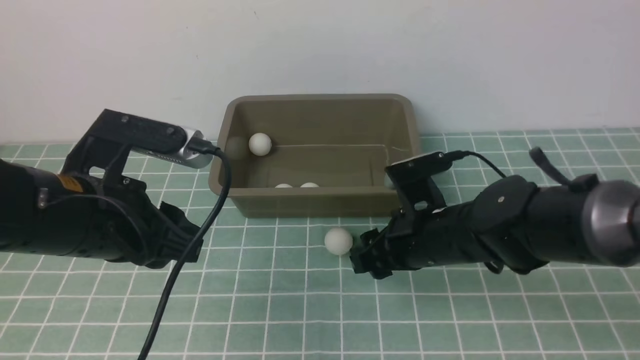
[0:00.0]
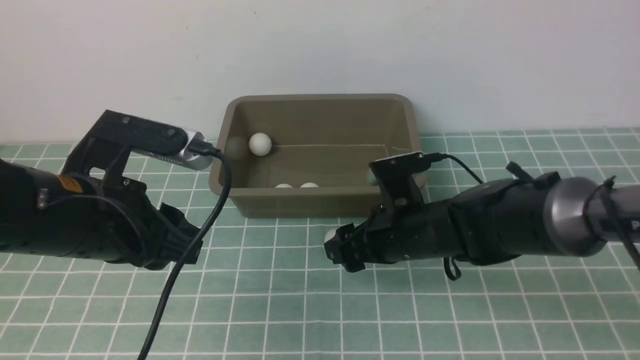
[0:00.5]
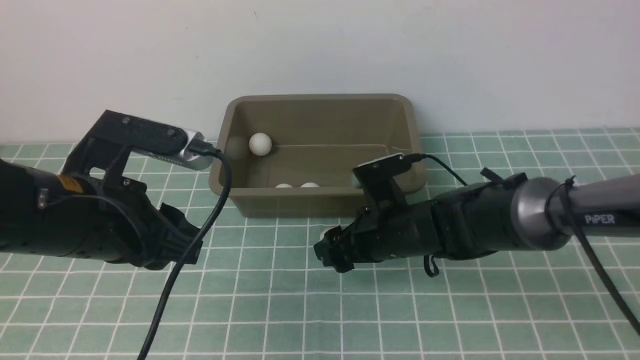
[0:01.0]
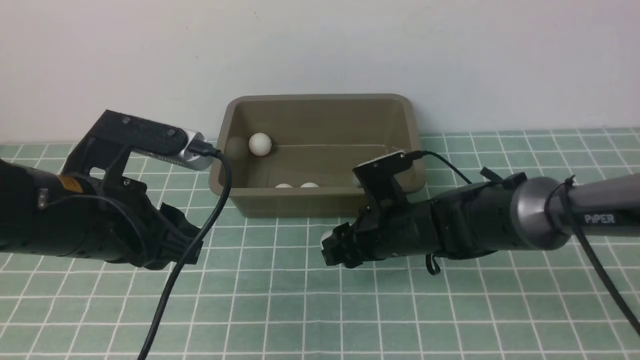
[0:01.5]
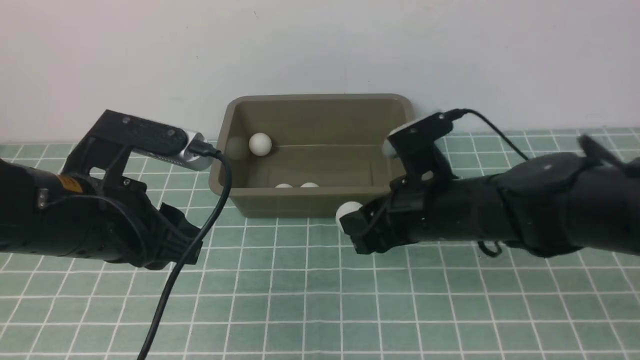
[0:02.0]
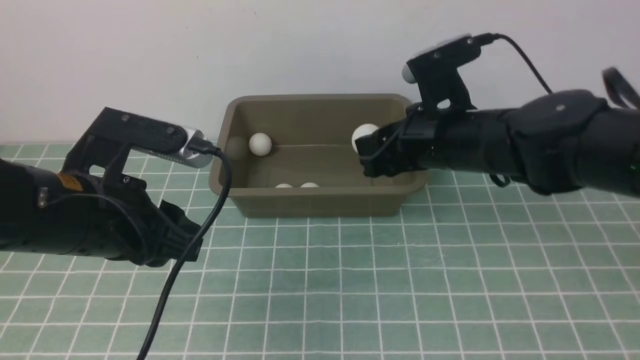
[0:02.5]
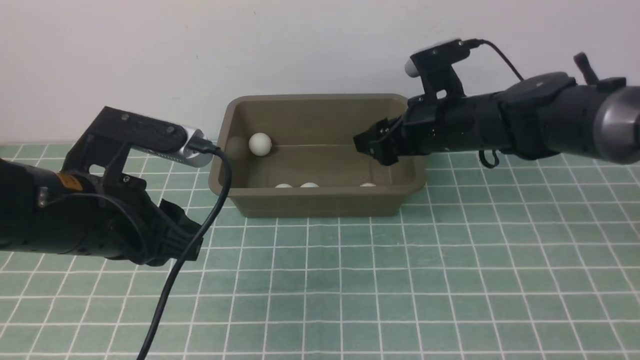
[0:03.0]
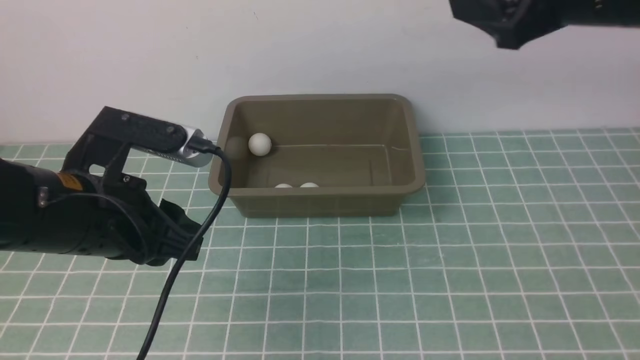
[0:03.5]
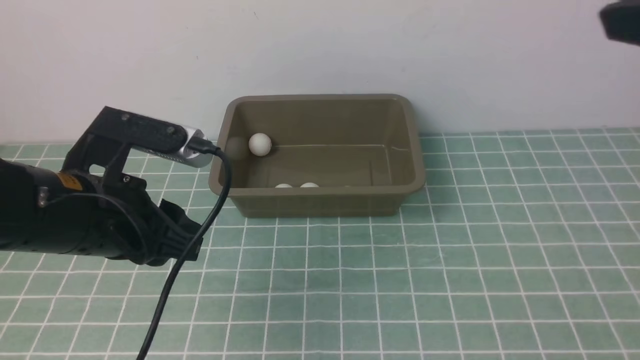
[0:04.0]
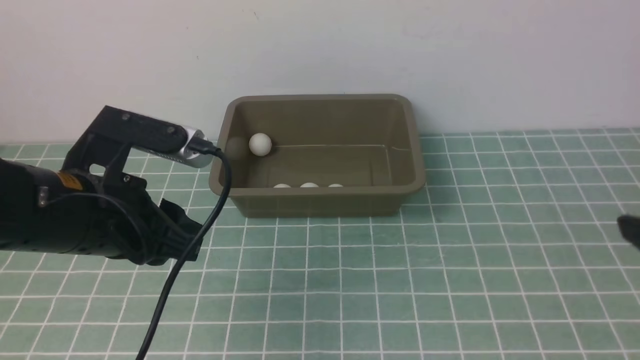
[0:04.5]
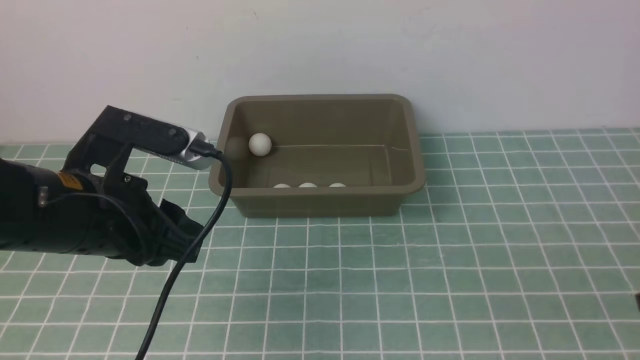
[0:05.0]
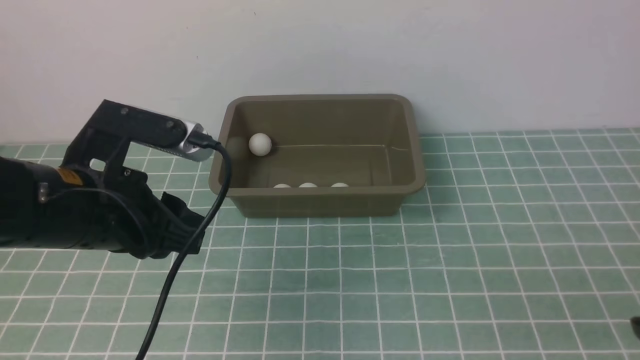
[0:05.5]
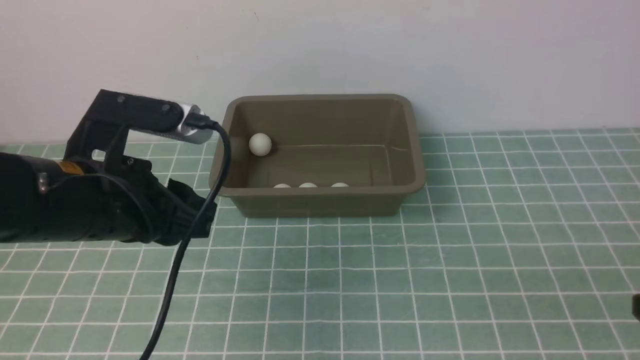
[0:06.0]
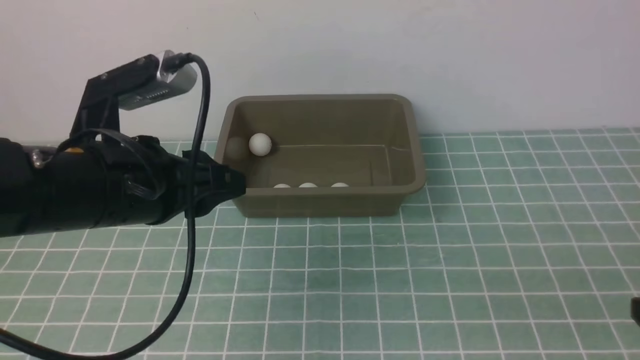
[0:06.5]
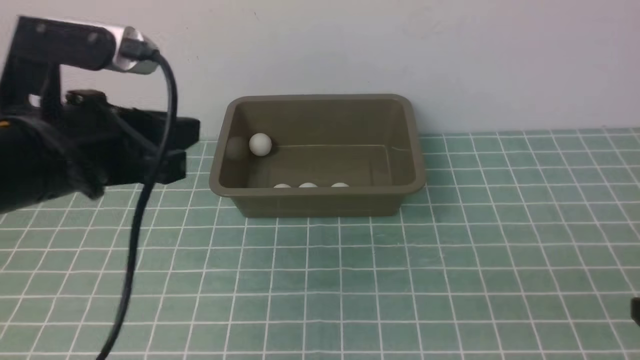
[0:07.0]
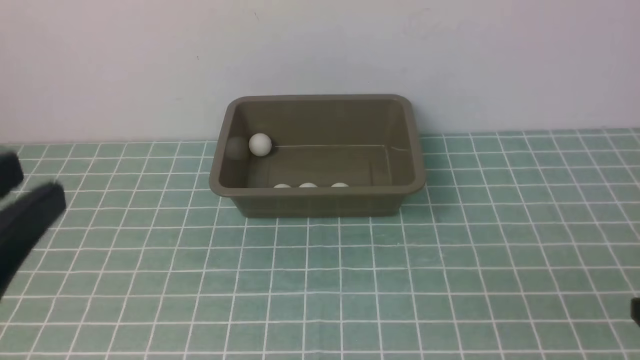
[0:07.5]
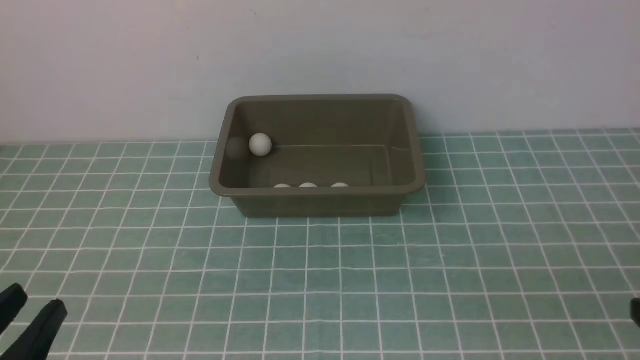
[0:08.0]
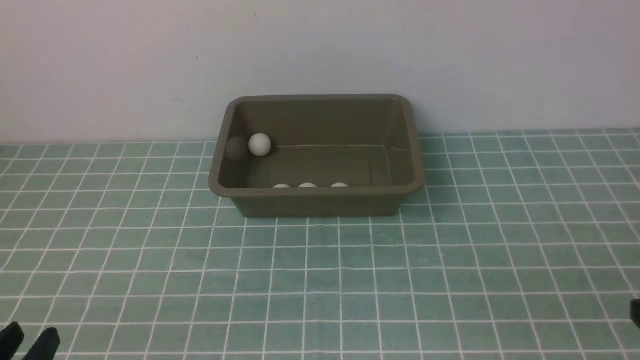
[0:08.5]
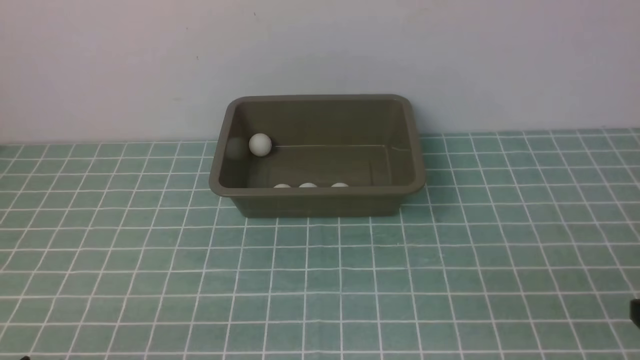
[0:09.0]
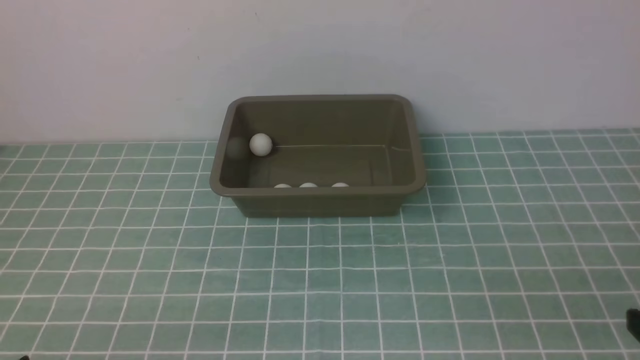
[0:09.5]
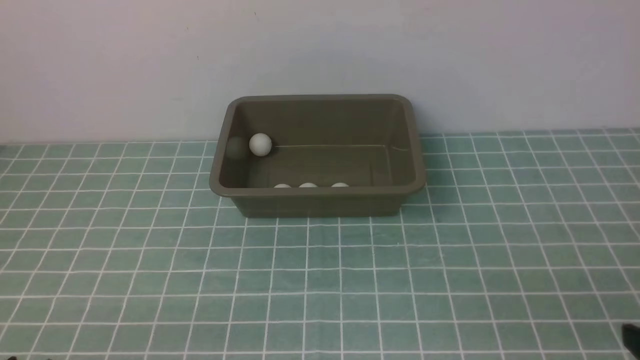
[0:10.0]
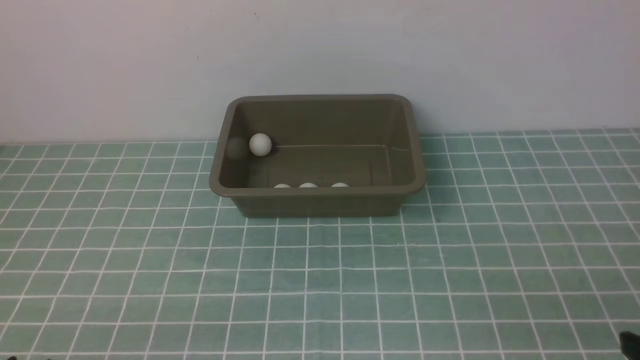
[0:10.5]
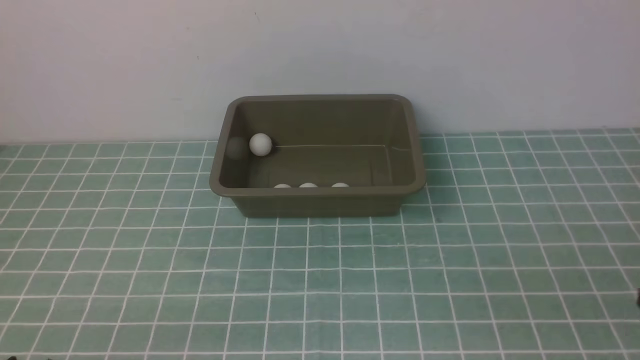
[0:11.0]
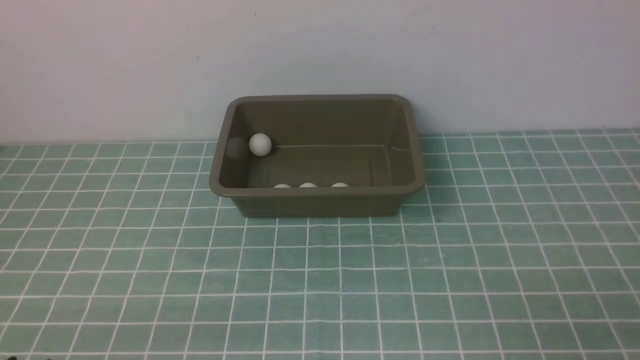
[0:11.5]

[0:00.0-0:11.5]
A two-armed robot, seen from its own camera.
Step, 0:02.0 to 0:03.0: use the right arm to put the table tennis ball into the box.
0:00.0 to 0:02.0: The right gripper closes.
0:02.0 to 0:04.0: The right gripper travels upward, to the right and backward by roughly 30 cm, and opens.
0:04.0 to 0:06.0: The right gripper shifts some 20 cm downward and backward, and closes its fingers.
0:06.0 to 0:07.5: The left gripper travels backward by some 20 cm.
0:07.5 to 0:09.5: The left gripper is displaced downward by approximately 15 cm.

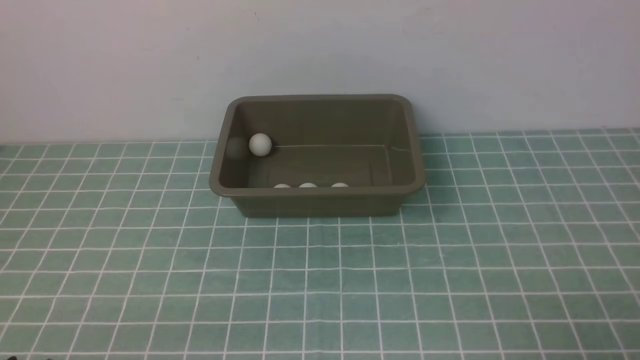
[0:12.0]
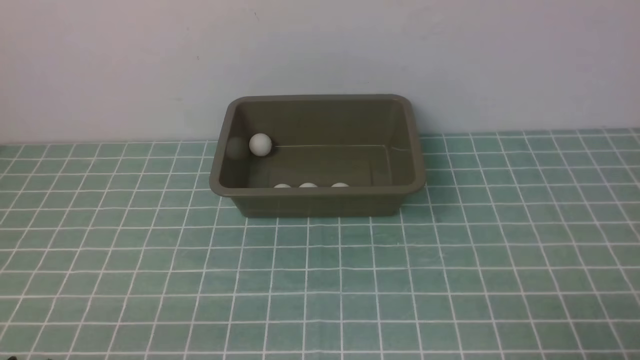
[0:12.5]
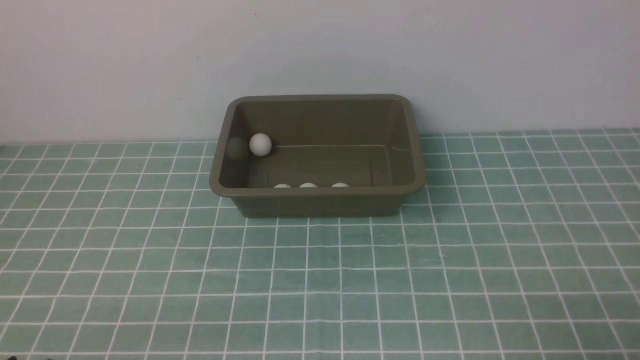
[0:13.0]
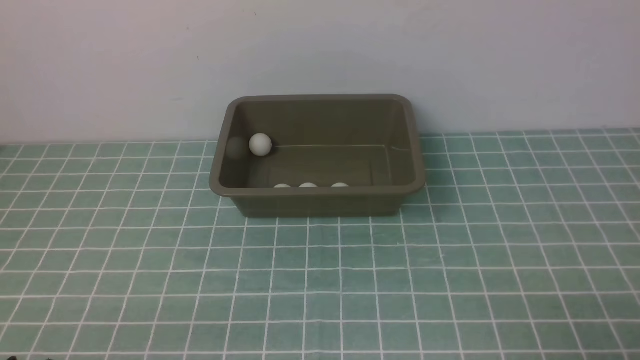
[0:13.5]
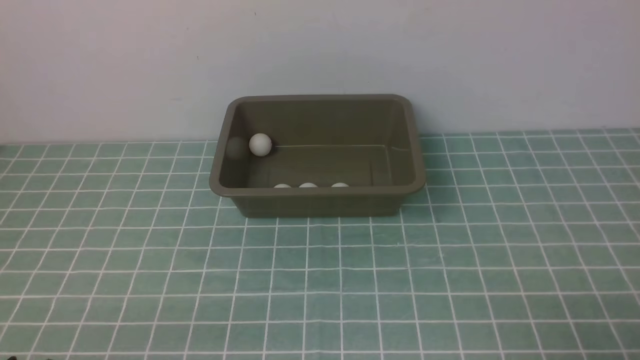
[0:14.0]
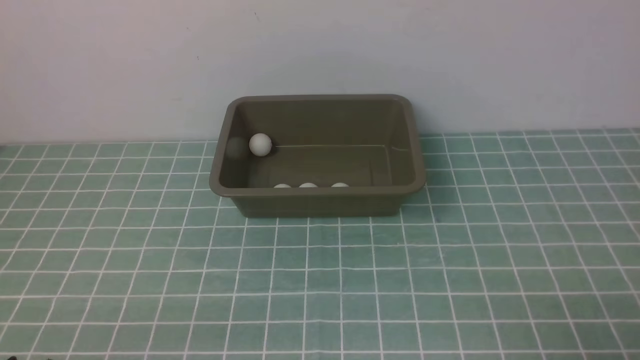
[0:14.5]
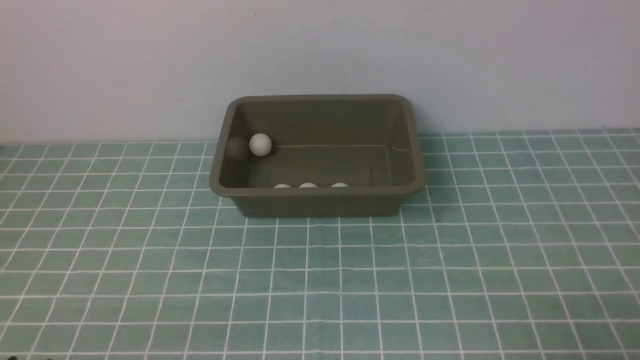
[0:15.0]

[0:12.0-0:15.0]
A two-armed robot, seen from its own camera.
0:12.0 to 0:15.0: Both grippers stay about where they are.
